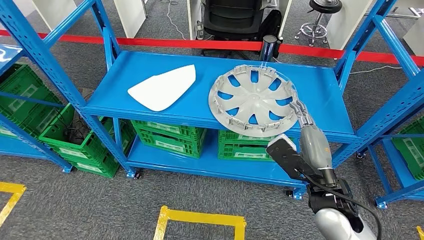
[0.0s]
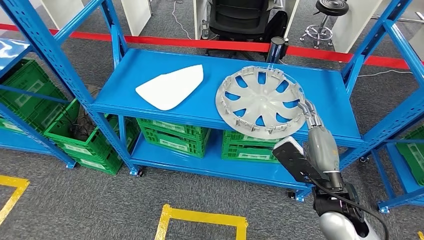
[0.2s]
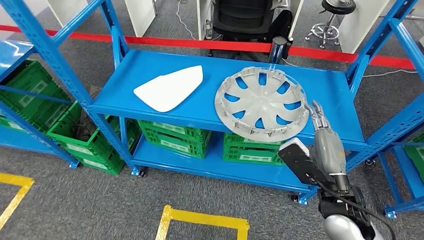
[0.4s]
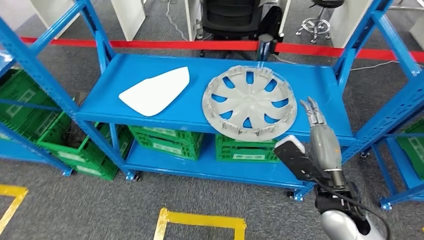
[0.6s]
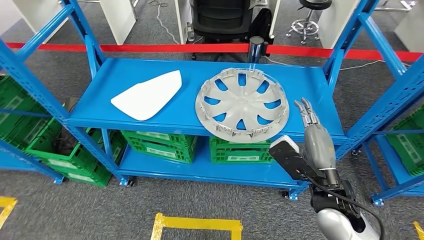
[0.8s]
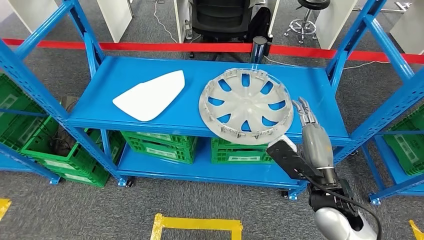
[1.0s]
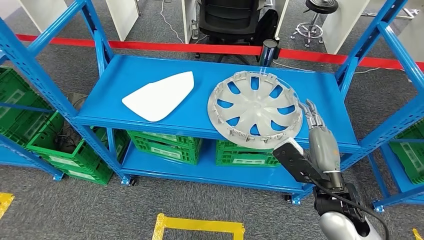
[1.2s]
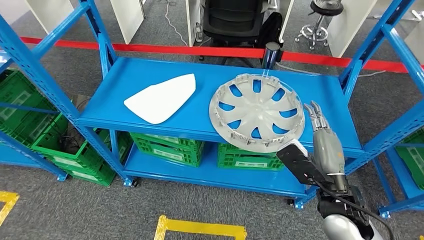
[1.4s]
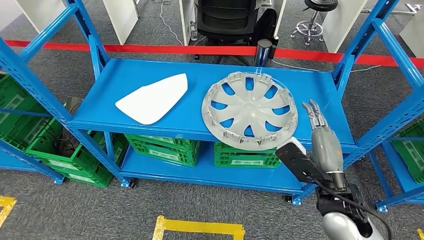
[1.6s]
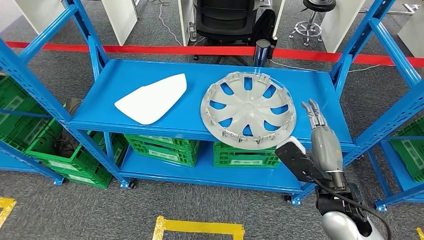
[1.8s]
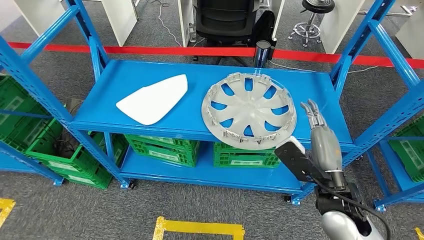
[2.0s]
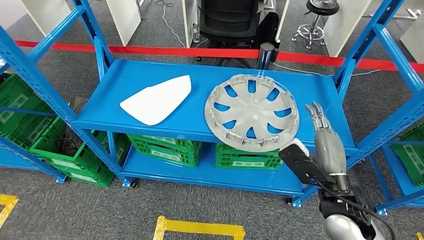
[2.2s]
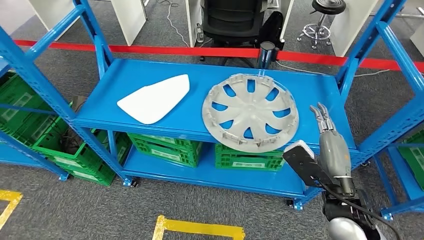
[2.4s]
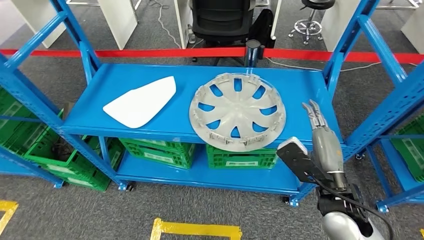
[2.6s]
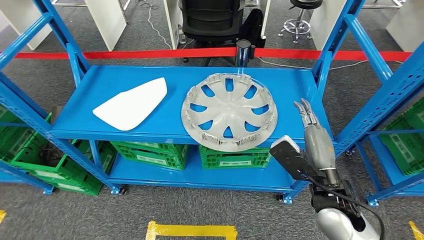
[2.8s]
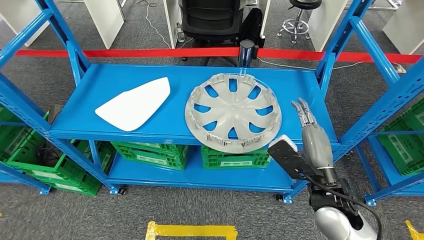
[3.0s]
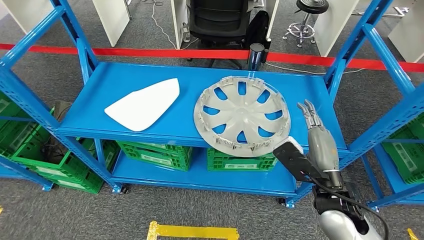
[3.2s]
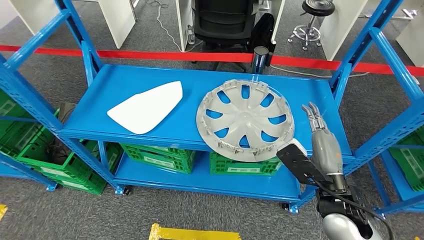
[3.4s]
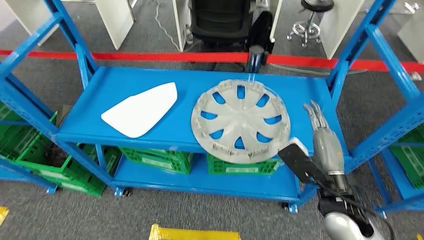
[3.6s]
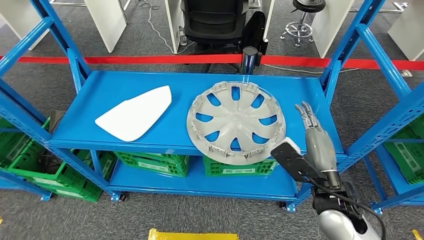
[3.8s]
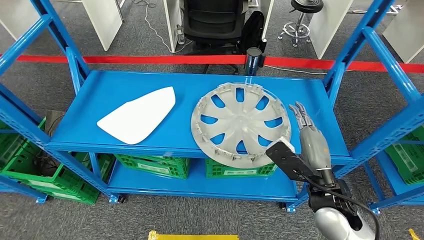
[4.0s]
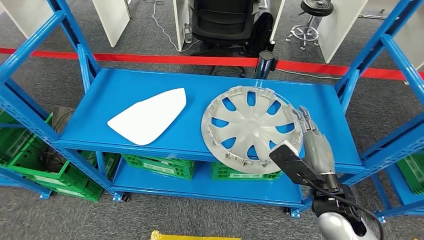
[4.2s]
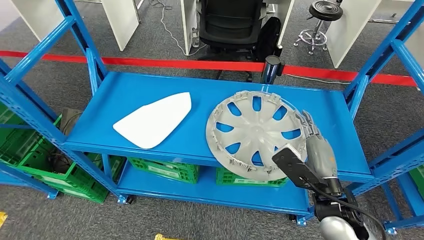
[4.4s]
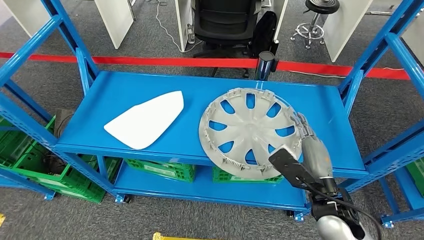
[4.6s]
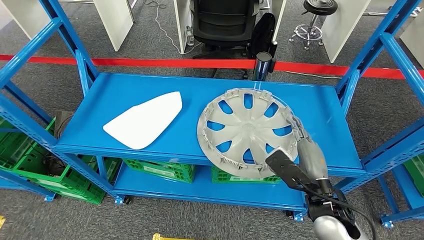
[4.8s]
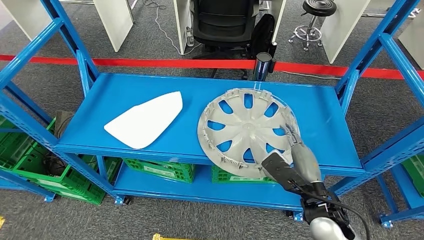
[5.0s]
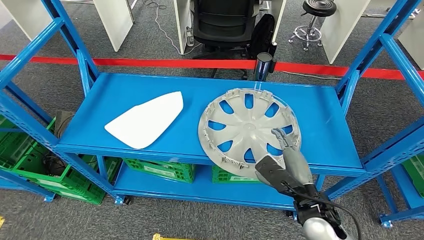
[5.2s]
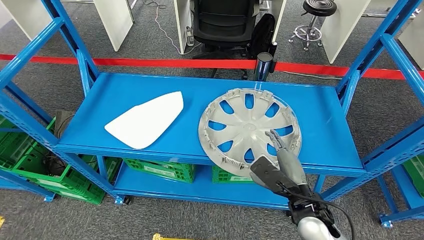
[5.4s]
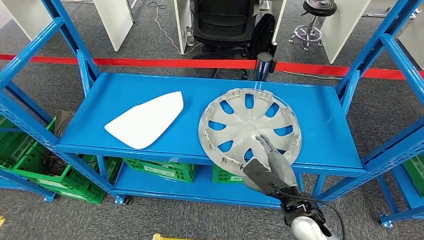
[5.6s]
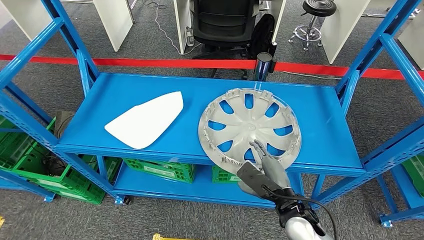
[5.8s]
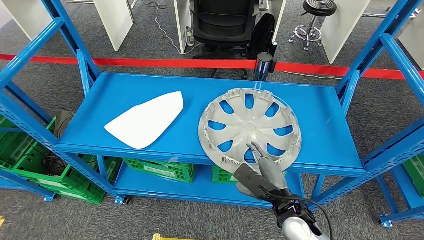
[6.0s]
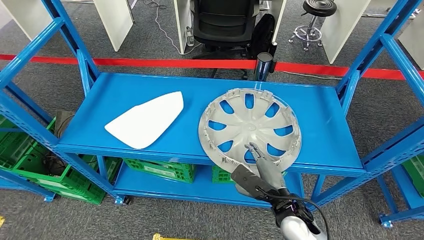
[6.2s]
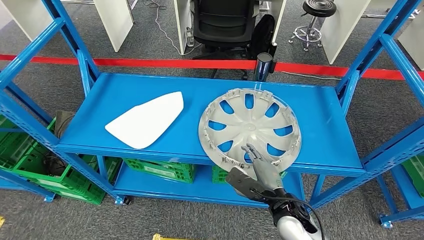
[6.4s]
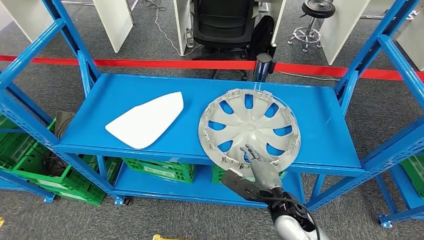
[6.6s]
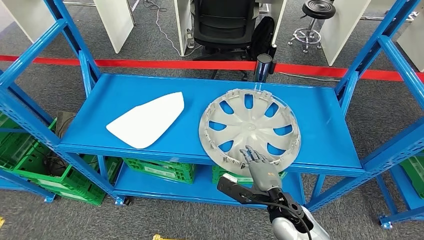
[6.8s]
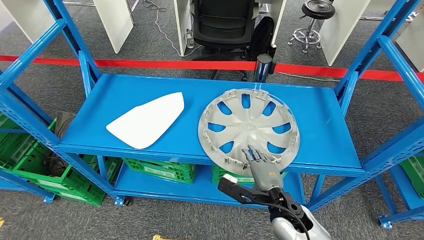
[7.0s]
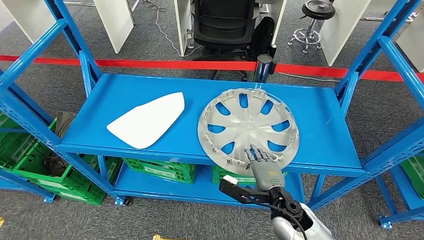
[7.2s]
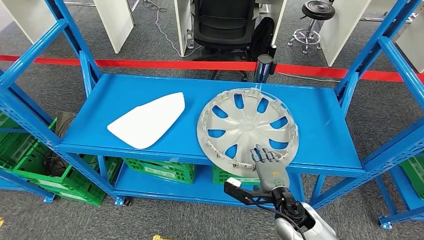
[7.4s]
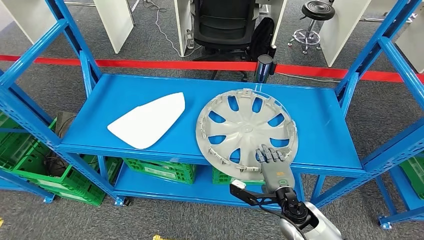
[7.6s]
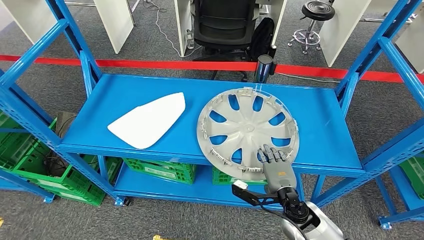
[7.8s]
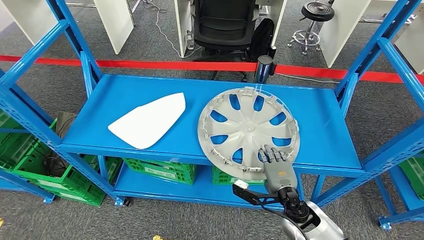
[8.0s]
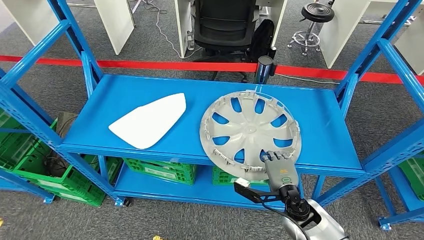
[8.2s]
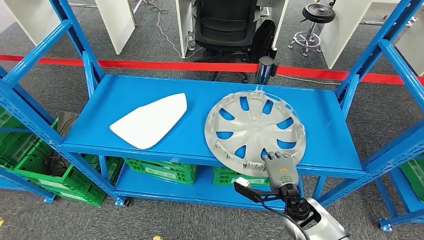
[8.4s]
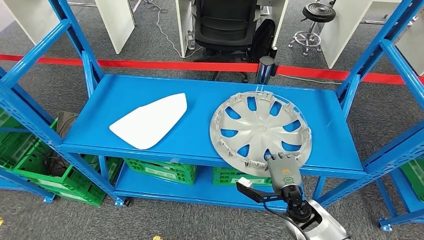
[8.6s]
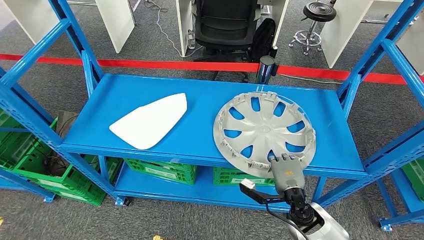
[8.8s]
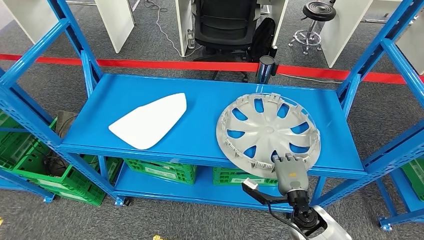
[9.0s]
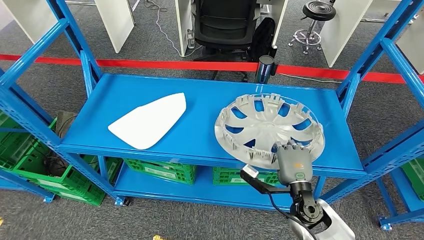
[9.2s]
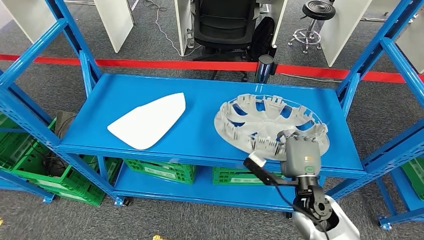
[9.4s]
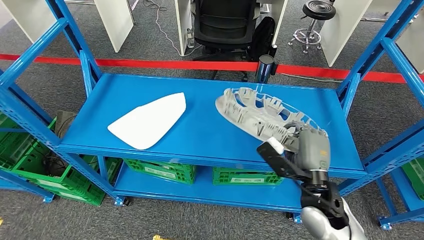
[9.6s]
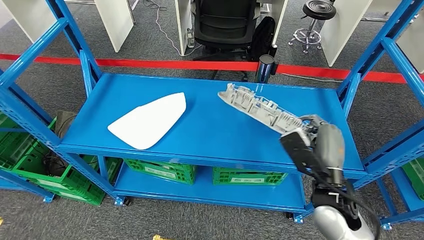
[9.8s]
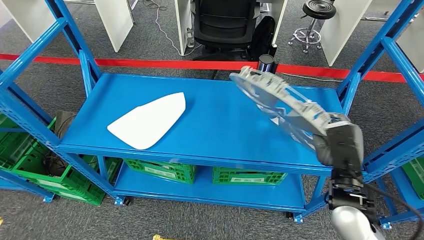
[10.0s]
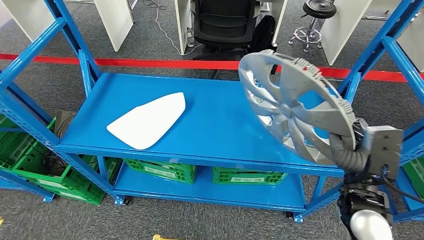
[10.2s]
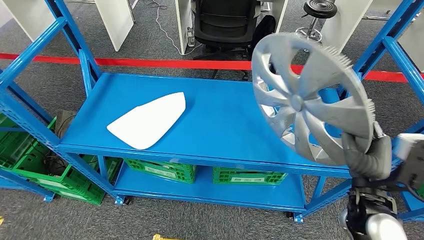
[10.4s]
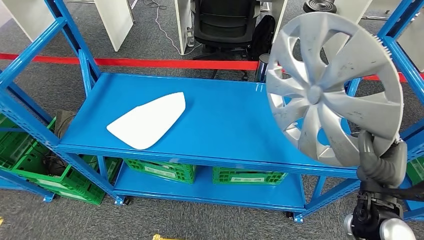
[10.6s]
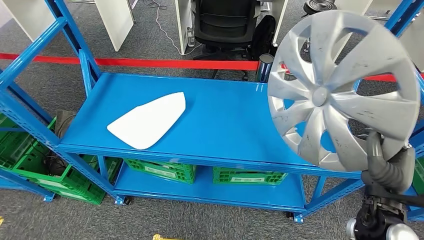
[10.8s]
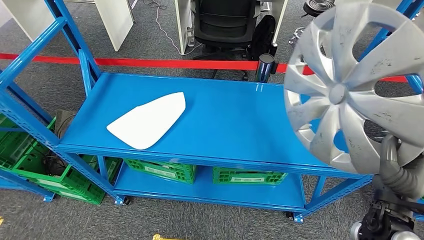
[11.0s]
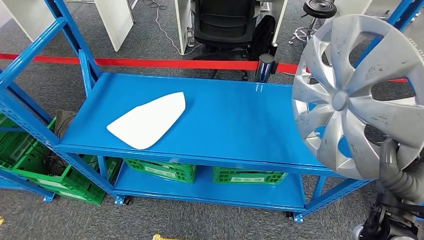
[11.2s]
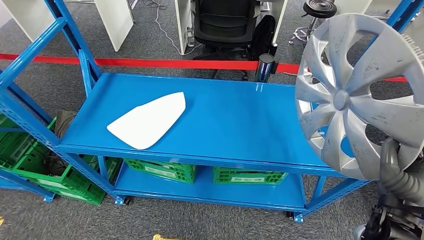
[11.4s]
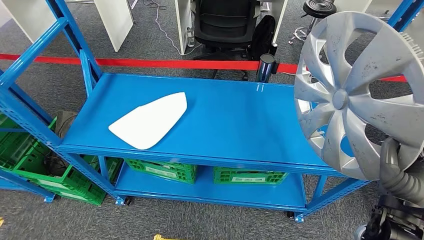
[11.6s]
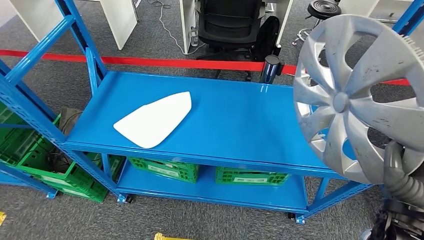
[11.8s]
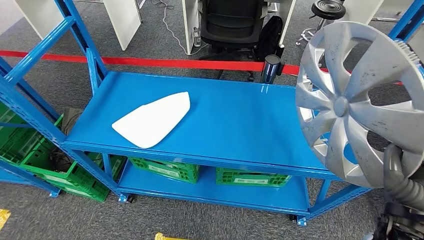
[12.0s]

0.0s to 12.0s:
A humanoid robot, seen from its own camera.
Step, 0.0s to 10.0s: Take small components from the rack.
6.0s to 7.6s: The right hand changes place by about 5 cm.
7.6s to 9.0s: The hands stay close to where they were, moving slightly.

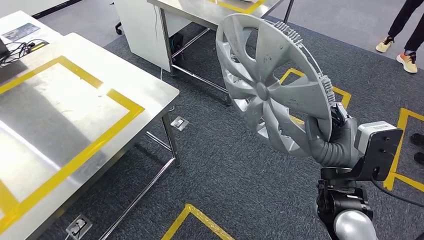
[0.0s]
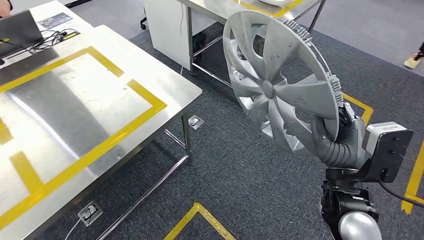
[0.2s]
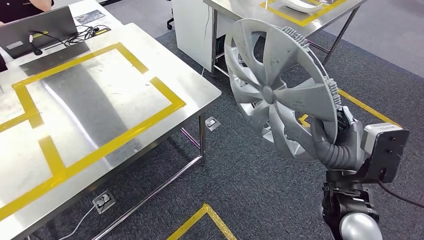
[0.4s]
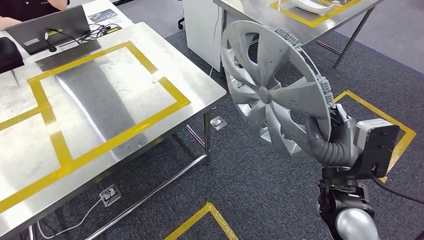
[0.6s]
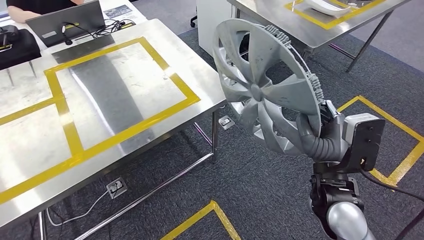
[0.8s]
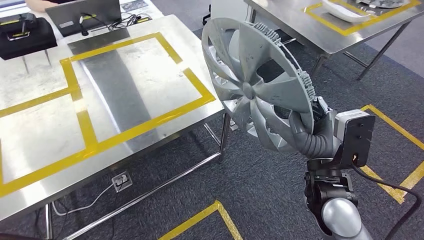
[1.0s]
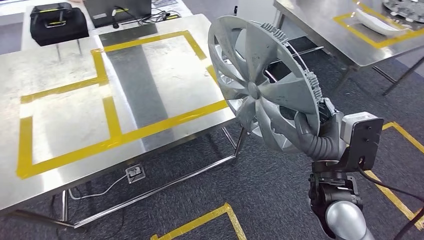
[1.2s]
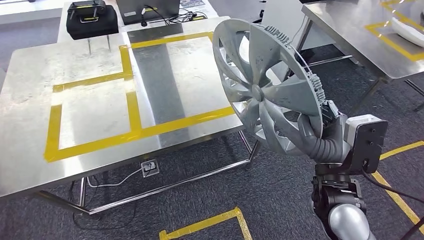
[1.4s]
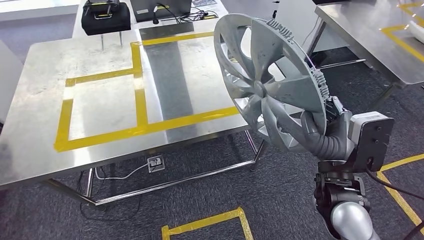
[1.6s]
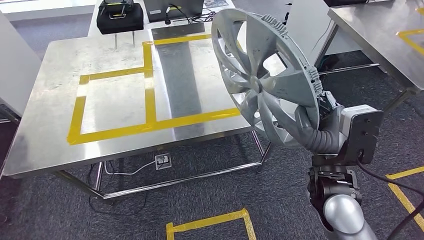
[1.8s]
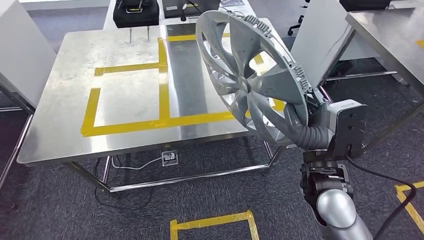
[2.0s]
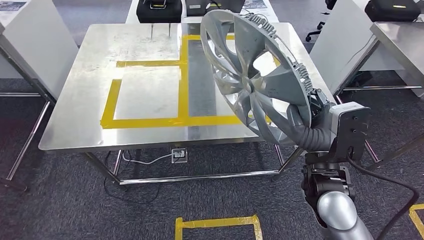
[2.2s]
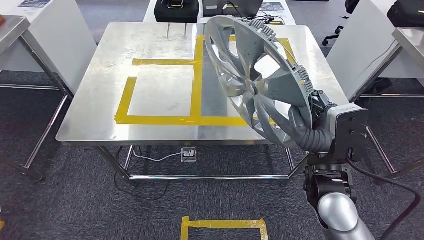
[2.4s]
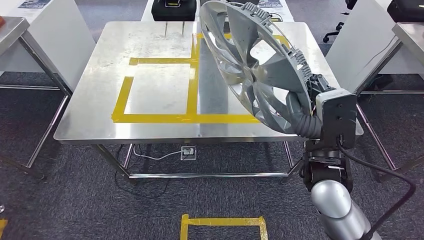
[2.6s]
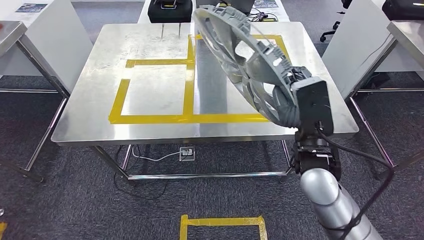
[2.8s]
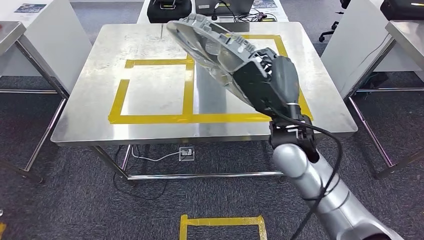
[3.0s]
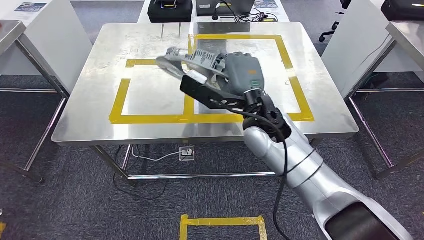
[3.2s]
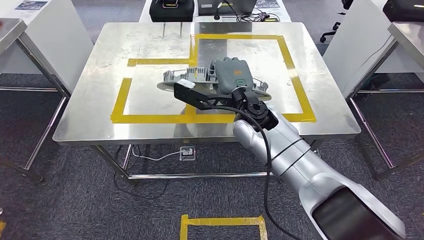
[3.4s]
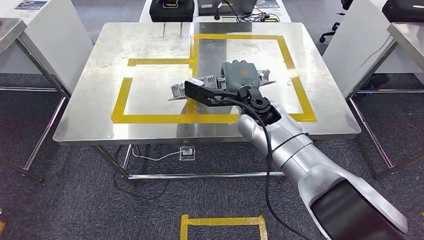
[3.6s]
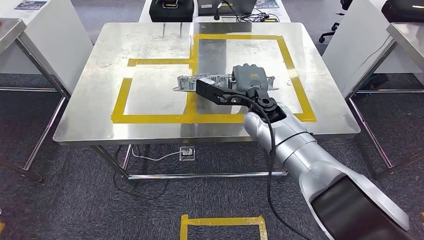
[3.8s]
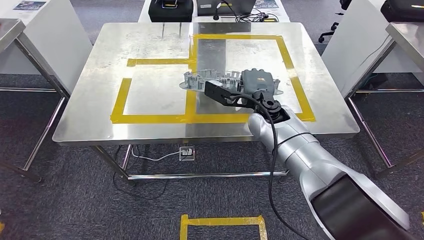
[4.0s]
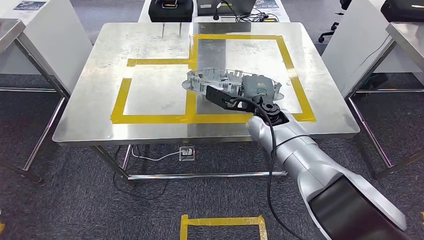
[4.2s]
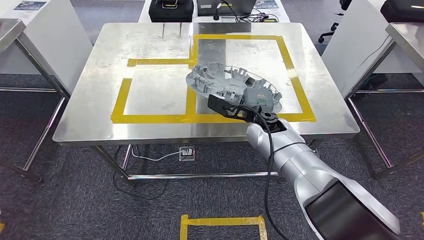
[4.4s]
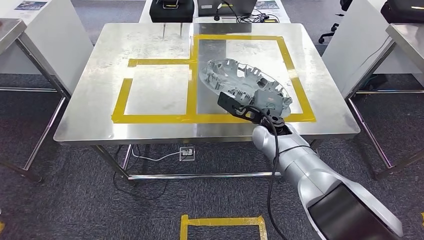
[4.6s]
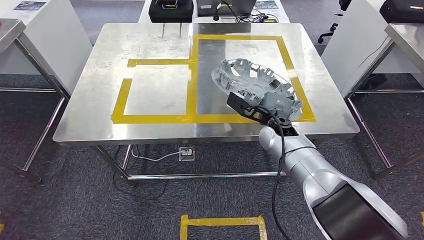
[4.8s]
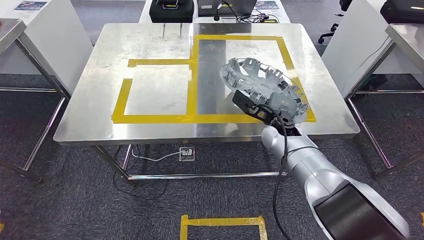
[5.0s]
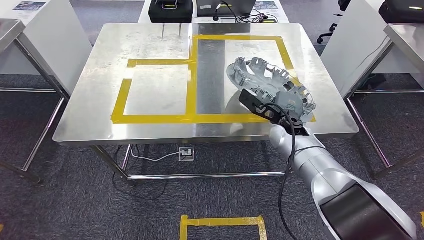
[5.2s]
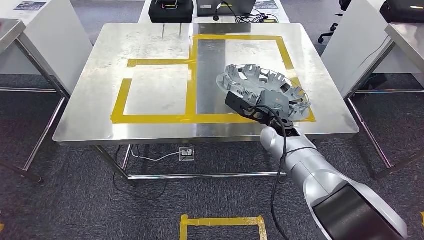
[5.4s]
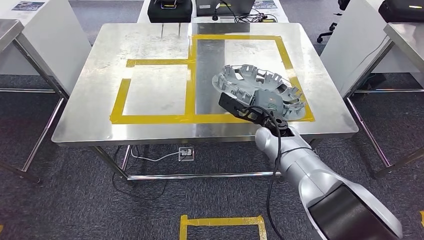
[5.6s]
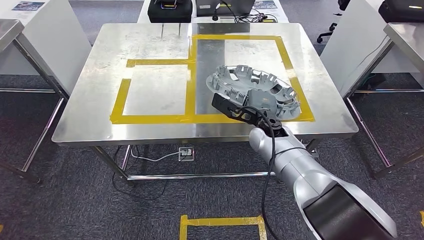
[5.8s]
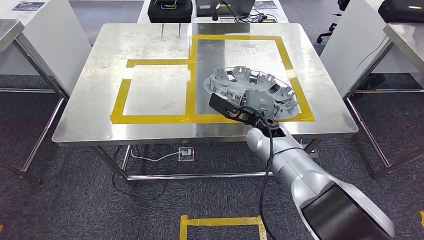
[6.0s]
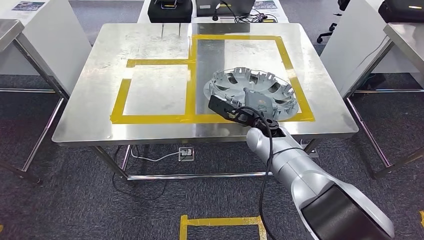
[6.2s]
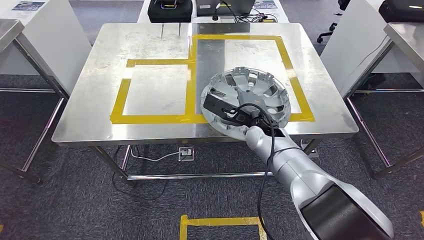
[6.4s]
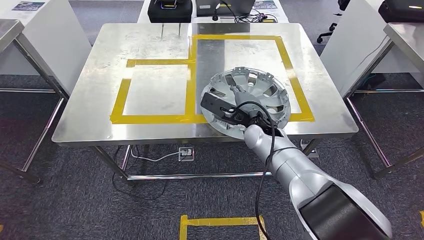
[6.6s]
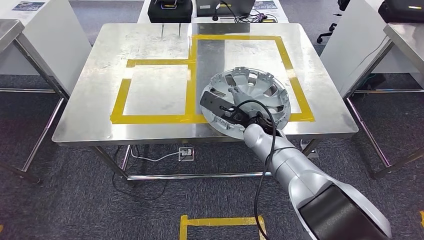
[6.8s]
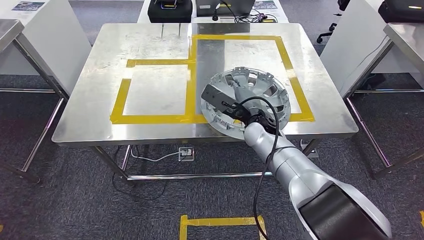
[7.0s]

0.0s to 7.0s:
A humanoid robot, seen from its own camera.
Step, 0.0s to 2.2s: Move the small parts to the workbench.
